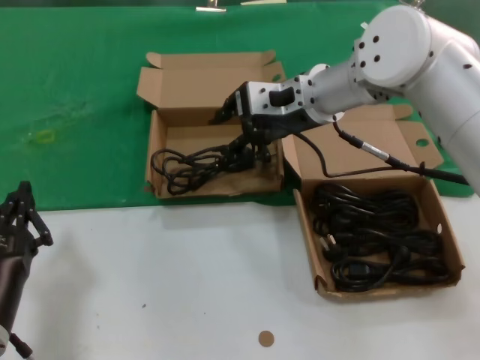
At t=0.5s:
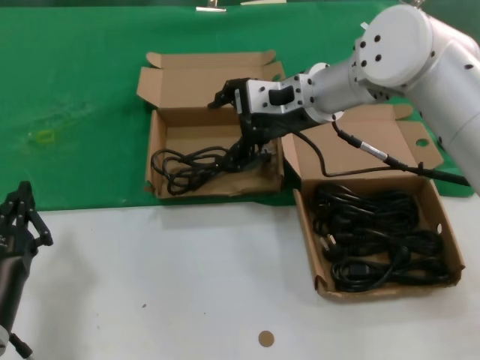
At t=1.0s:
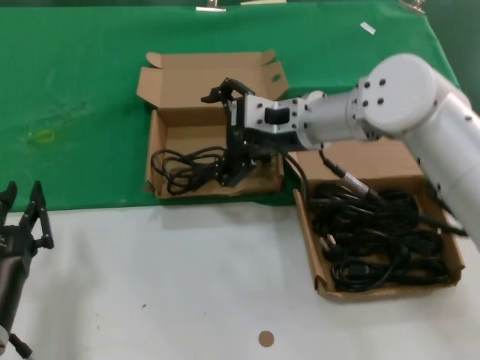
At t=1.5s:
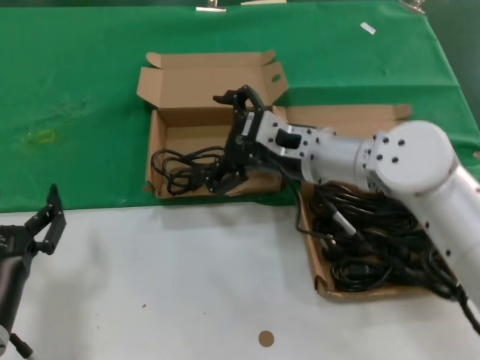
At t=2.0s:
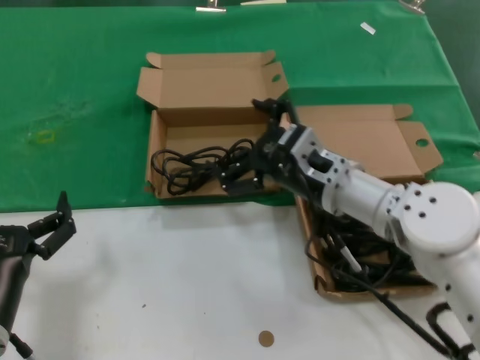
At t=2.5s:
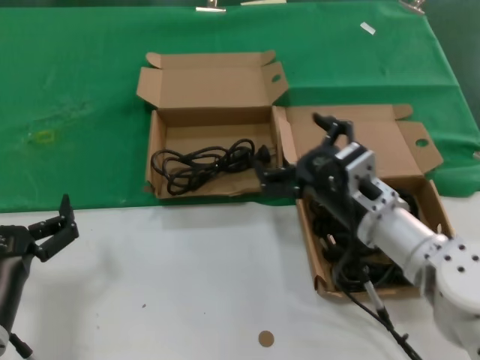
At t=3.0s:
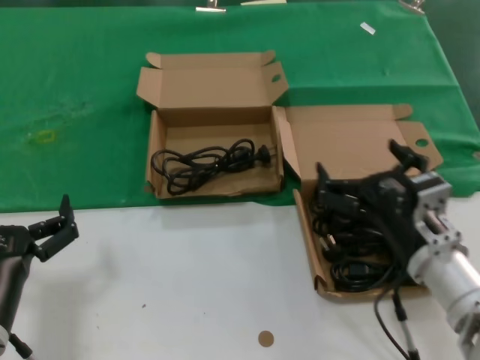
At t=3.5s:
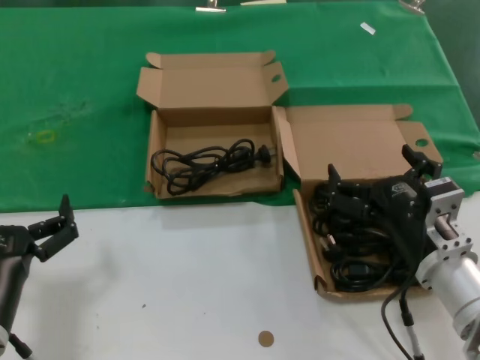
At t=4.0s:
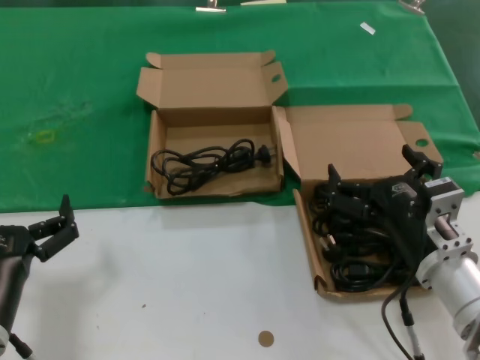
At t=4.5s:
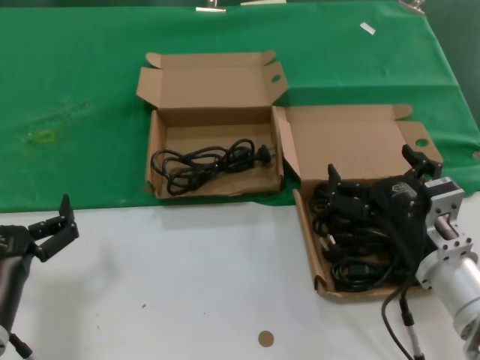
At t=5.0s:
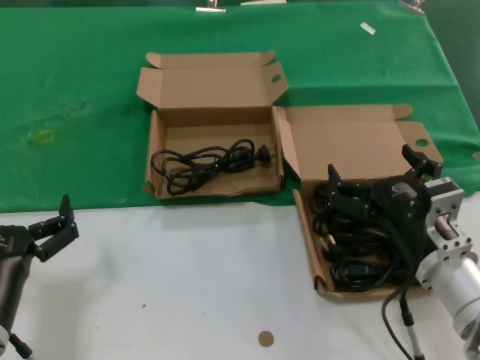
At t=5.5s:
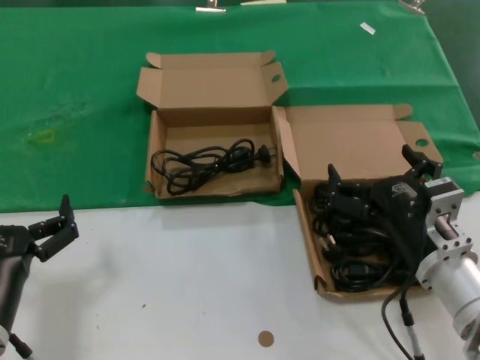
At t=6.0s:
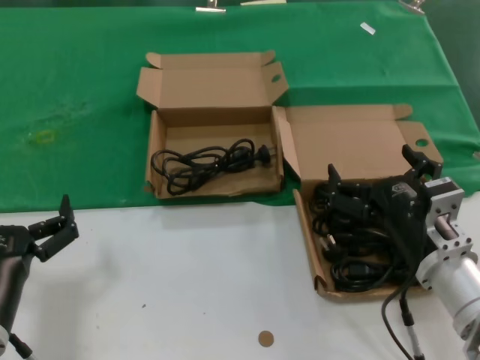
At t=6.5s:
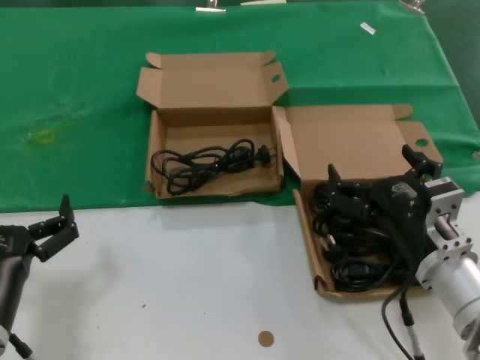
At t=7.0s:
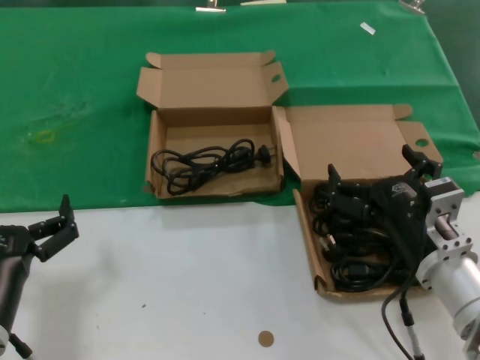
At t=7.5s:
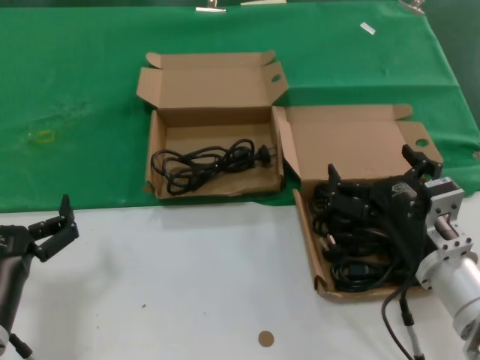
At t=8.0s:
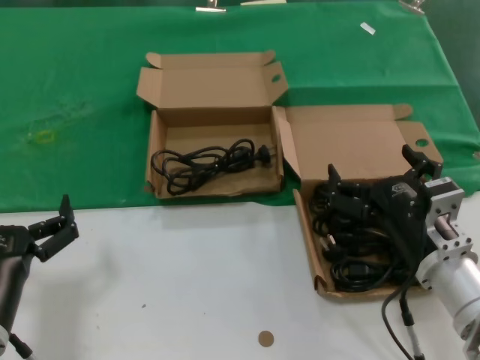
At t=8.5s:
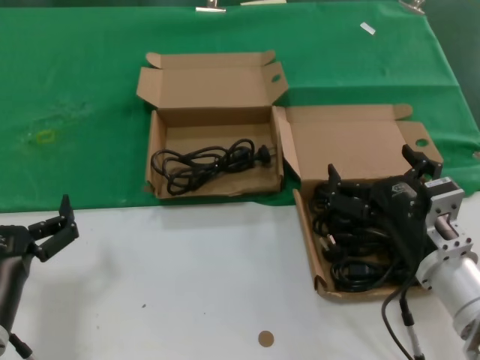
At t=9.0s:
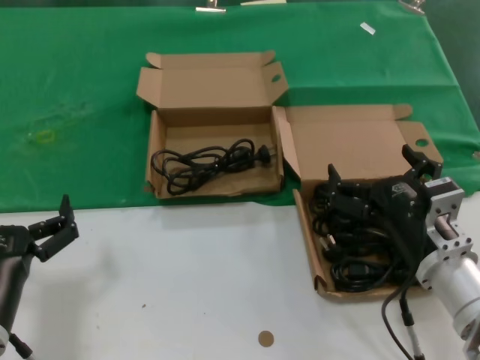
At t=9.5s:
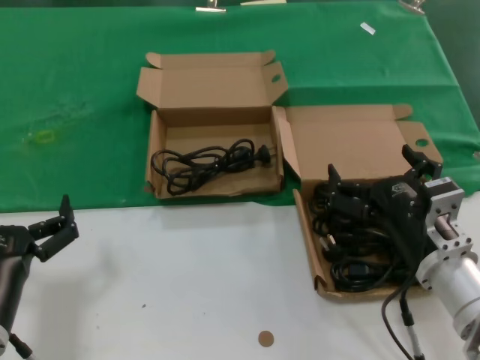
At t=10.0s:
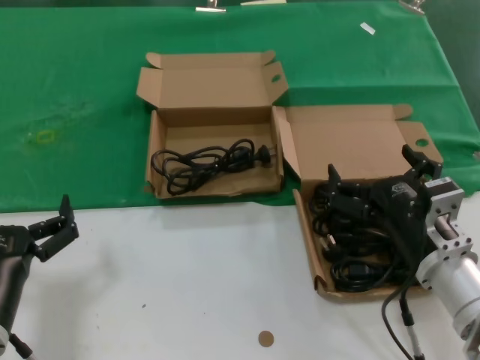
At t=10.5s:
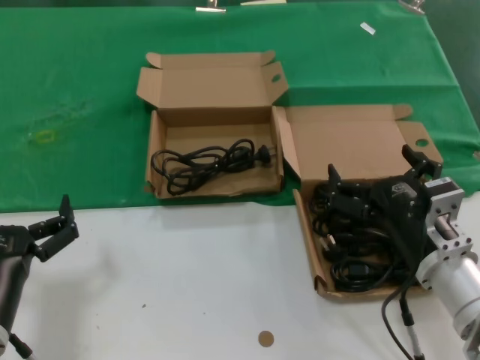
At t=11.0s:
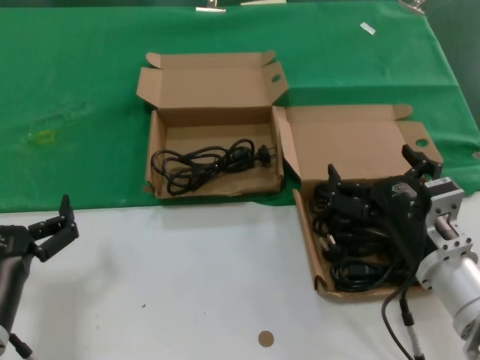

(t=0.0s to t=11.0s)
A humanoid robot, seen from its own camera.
Task of the whole recording: take the parts from the box containing them and put them into an empty box.
t=0.0s - t=2.0s: The right hand is displaced downward and backward by about 15 cm.
t=2.0s - t=3.5s: The right hand heads backward, to the right and downward, covering some 15 cm.
t=3.5s - t=11.0s: Both hands stay about where they are.
